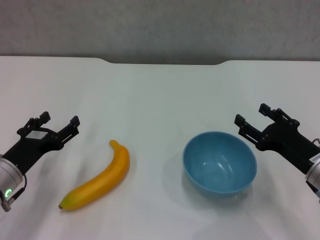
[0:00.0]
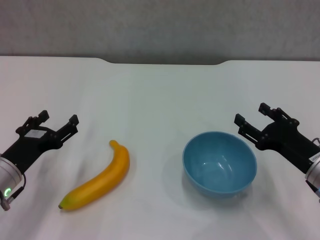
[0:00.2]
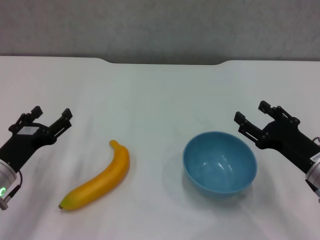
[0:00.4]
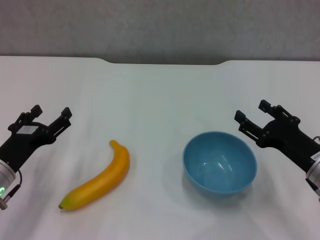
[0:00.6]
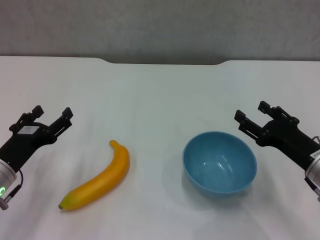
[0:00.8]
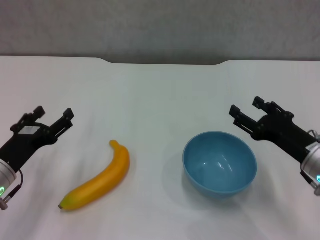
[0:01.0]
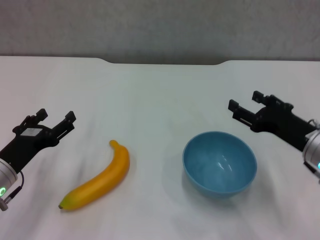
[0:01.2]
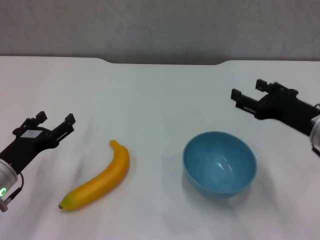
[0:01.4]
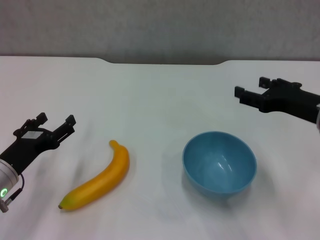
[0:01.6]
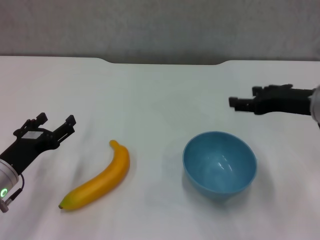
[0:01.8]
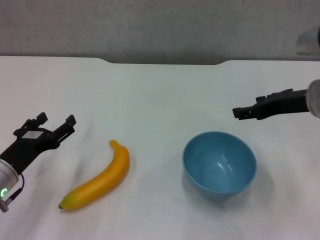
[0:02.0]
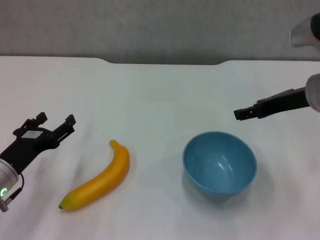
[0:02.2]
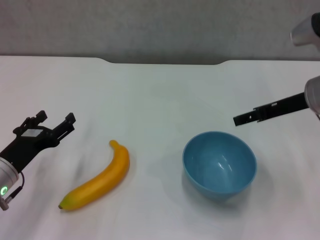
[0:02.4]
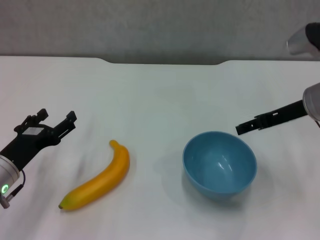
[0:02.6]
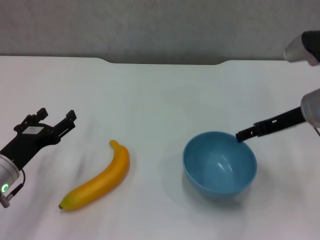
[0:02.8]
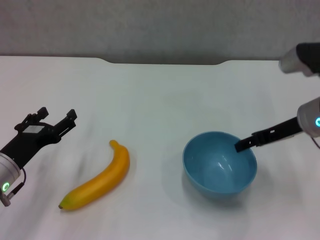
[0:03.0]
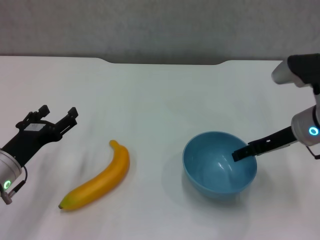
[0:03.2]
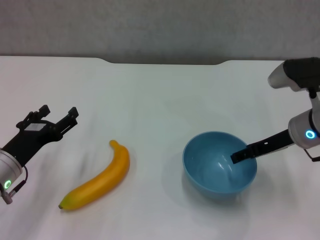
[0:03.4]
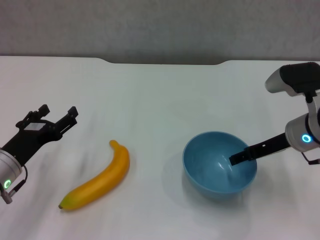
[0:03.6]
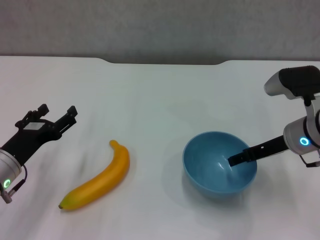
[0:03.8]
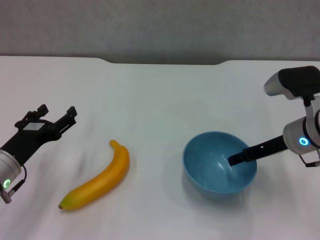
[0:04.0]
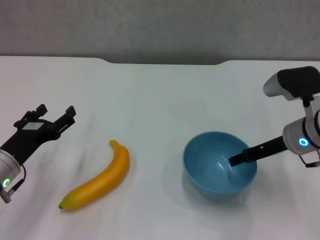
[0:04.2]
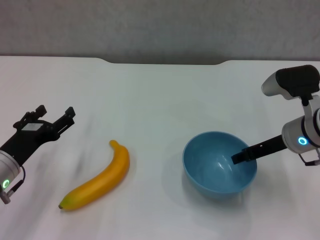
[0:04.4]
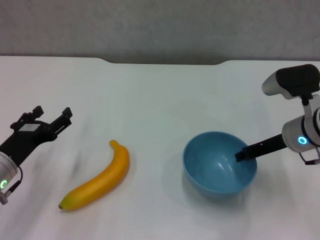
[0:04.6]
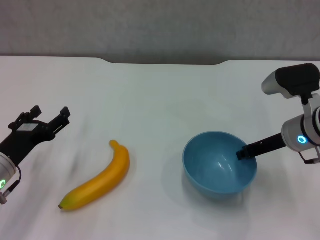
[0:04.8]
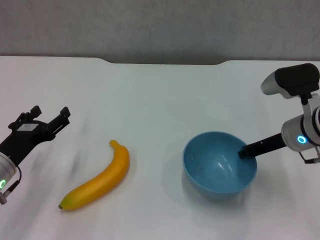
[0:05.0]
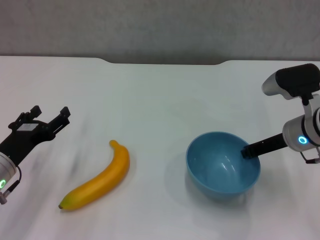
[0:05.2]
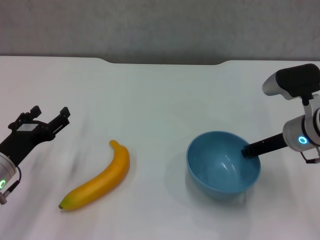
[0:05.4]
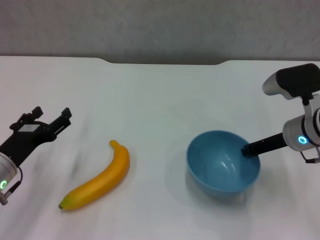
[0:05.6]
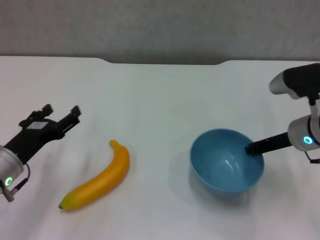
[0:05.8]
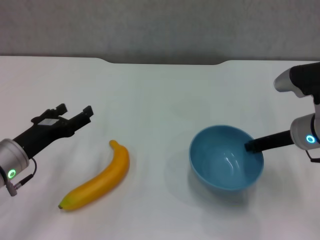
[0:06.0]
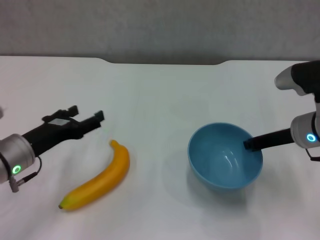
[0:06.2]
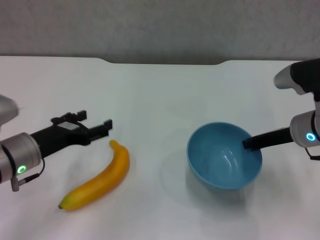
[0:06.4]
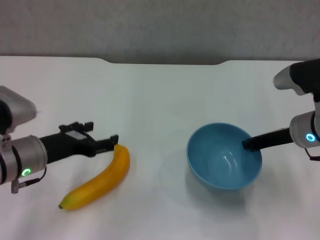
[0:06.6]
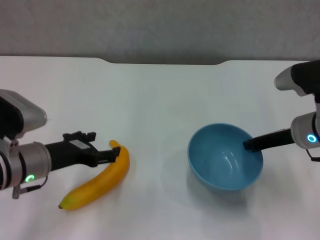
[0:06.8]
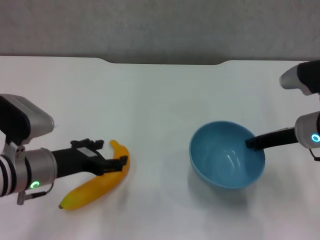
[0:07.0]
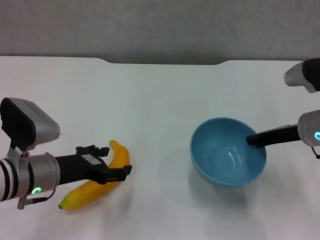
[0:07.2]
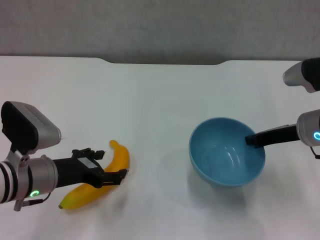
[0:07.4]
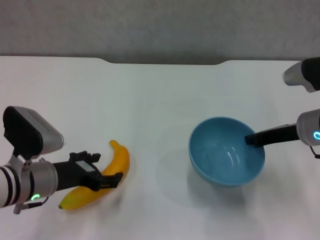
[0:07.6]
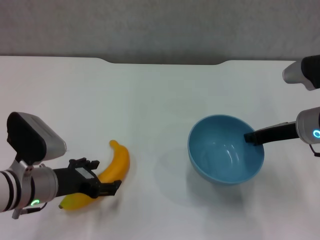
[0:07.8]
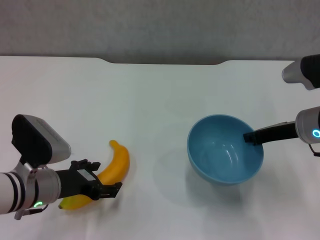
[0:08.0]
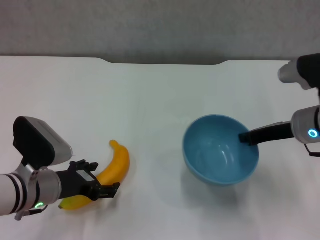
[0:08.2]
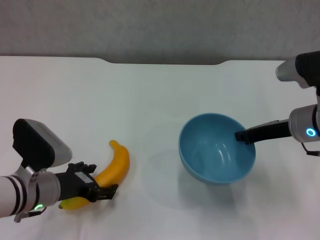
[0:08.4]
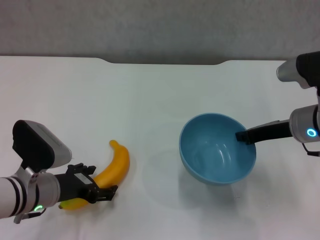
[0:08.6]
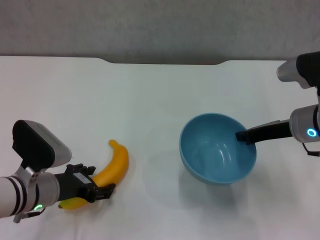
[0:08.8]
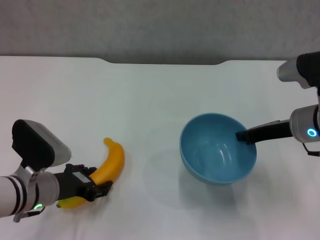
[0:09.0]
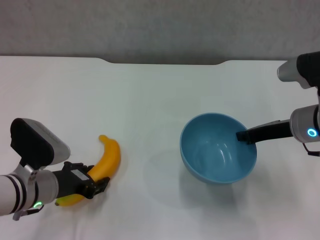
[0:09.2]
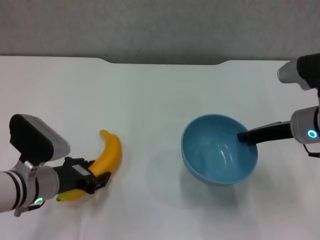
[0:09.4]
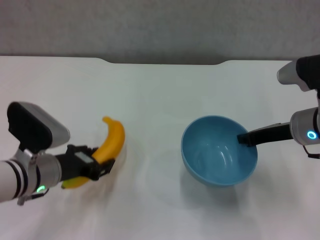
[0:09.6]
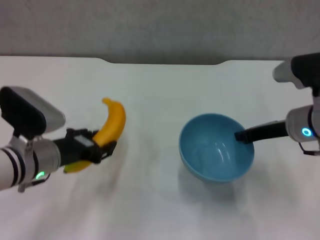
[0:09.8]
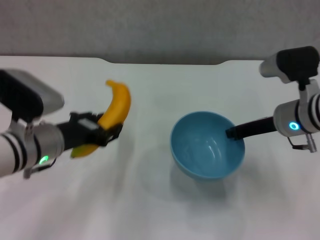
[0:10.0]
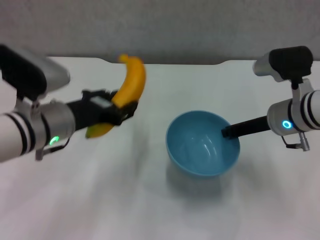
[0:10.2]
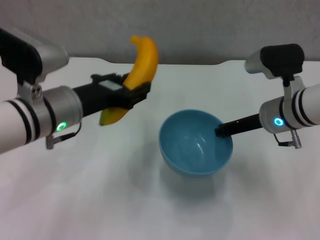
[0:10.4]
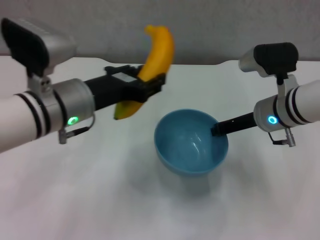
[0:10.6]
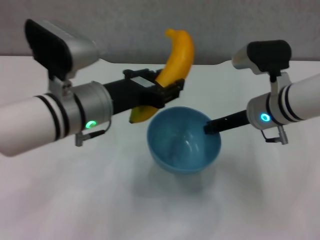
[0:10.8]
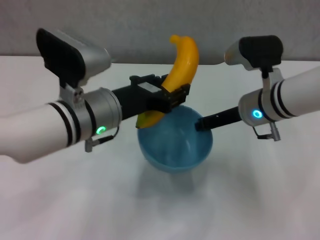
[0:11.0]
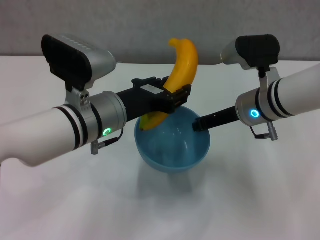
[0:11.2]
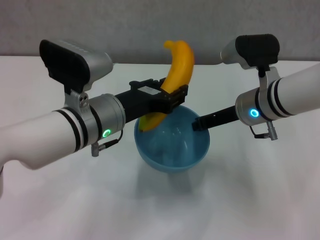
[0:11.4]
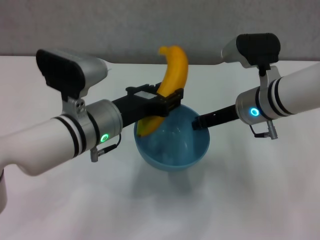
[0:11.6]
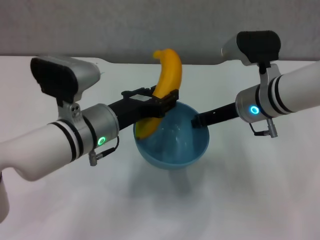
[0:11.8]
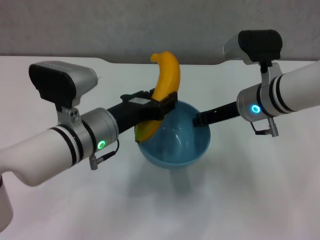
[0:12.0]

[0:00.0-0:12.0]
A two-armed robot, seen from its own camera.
Step, 0:00.0 to 0:05.2: Grasp the blue bowl with right gripper.
Step, 0:05.4 to 0:06.0: Lift the blue bowl with right gripper.
Step, 0:06.2 to 0:09.0: Grasp the banana with left gripper.
0:00.0 to 0:01.6: The right gripper heads upward, covering approximately 10 cm.
0:01.6 to 0:03.0: The right gripper goes roughly 5 cm forward.
0:03.0 to 0:04.4: The grippers move only a little.
0:04.4 to 0:06.0: The right gripper closes up.
0:07.6 to 0:09.0: The grippers move only a little.
0:09.0 to 0:10.4: The left gripper heads upward and to the right, covering about 15 cm, and closes its fingers.
0:10.4 to 0:12.0: The left gripper shifts by roughly 5 cm.

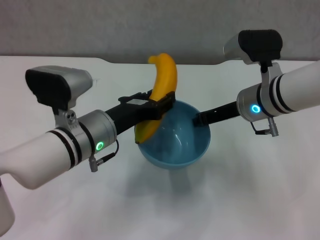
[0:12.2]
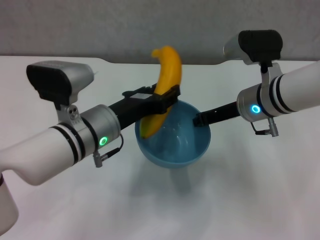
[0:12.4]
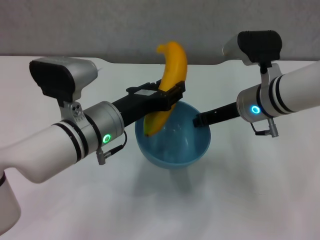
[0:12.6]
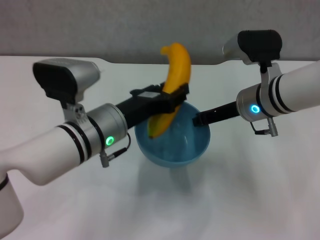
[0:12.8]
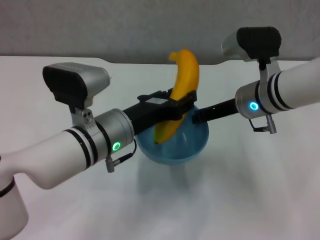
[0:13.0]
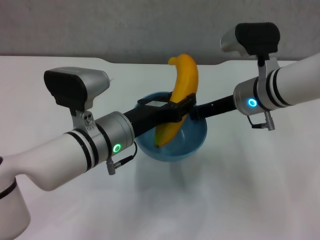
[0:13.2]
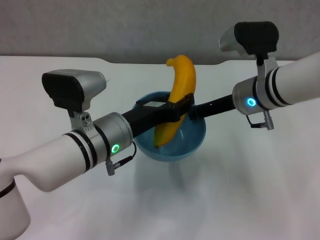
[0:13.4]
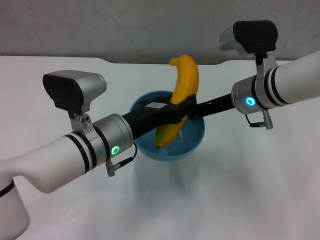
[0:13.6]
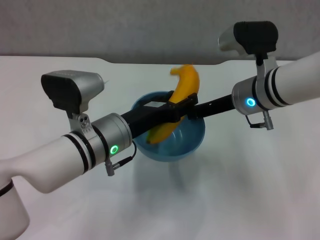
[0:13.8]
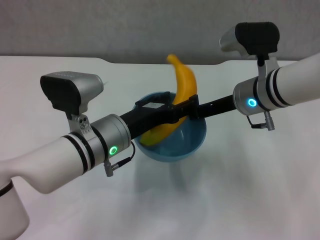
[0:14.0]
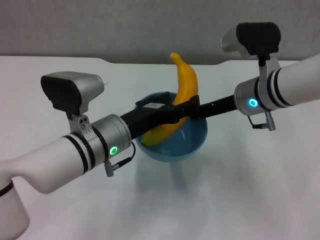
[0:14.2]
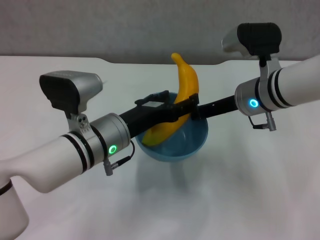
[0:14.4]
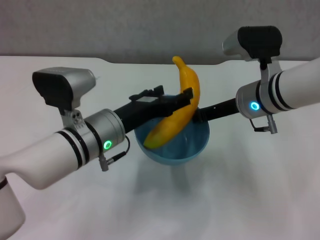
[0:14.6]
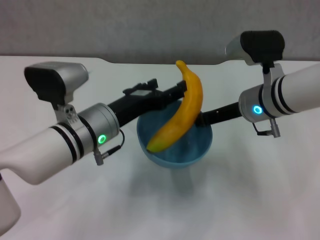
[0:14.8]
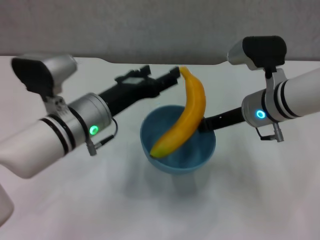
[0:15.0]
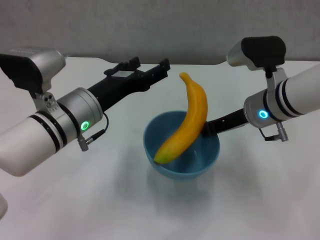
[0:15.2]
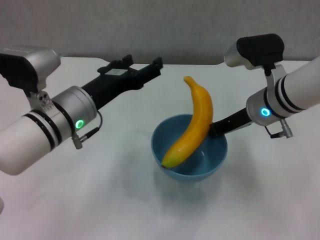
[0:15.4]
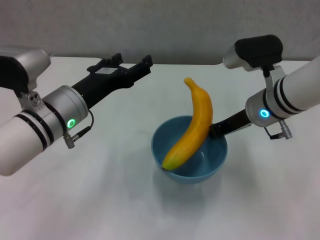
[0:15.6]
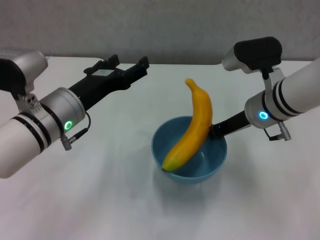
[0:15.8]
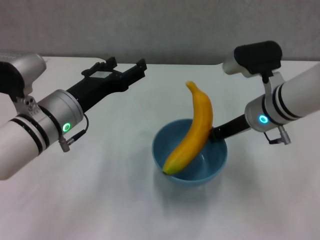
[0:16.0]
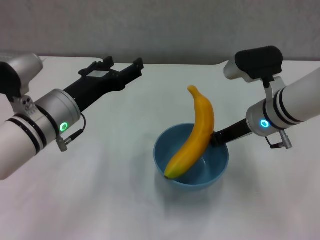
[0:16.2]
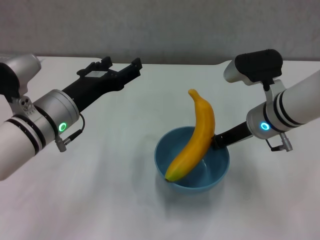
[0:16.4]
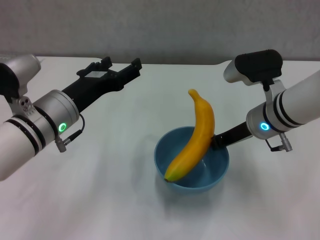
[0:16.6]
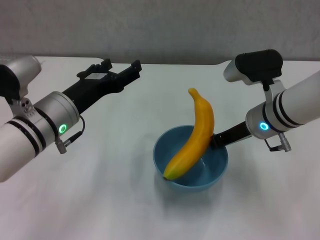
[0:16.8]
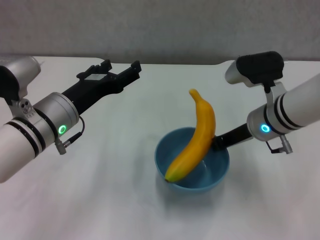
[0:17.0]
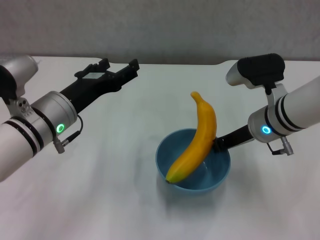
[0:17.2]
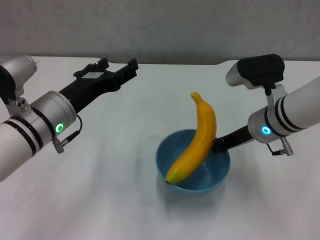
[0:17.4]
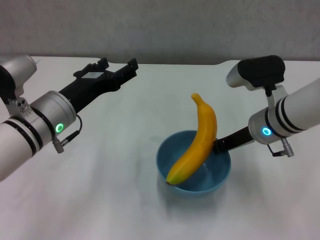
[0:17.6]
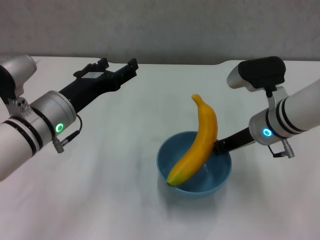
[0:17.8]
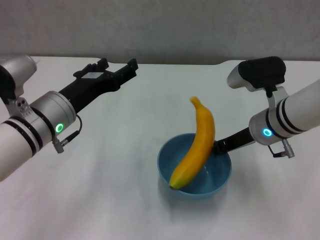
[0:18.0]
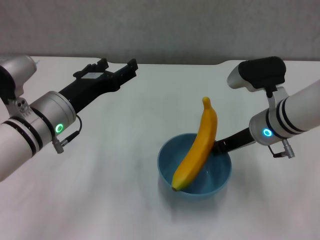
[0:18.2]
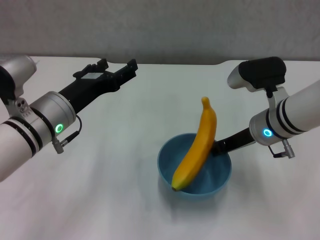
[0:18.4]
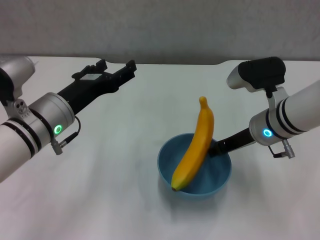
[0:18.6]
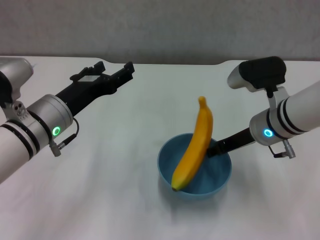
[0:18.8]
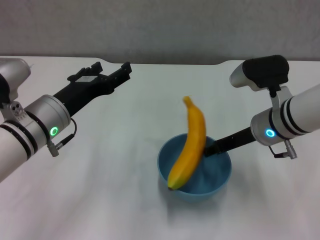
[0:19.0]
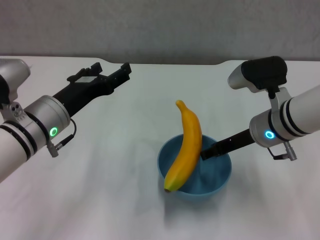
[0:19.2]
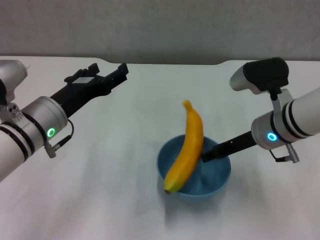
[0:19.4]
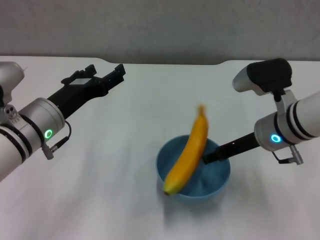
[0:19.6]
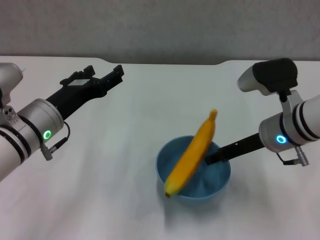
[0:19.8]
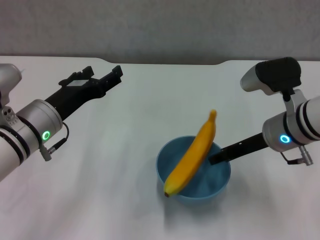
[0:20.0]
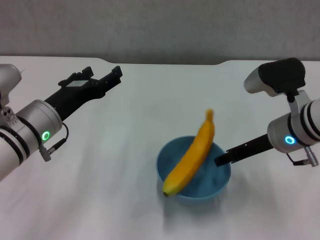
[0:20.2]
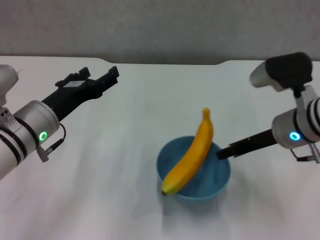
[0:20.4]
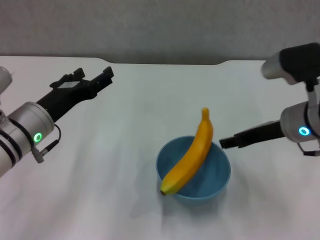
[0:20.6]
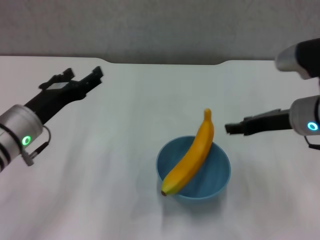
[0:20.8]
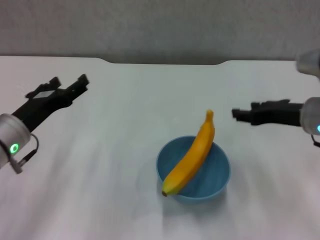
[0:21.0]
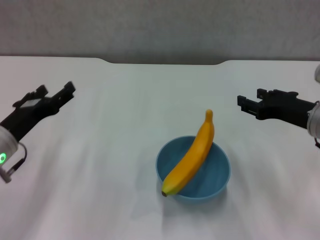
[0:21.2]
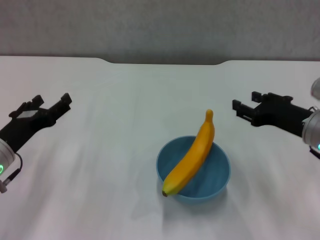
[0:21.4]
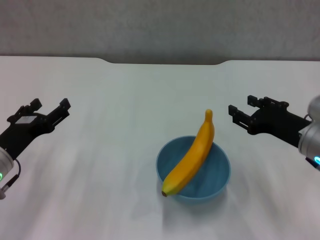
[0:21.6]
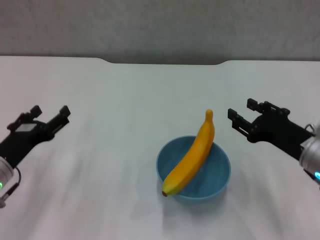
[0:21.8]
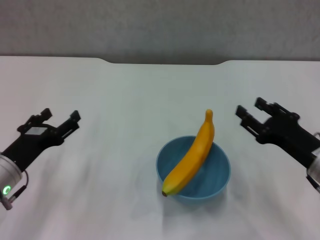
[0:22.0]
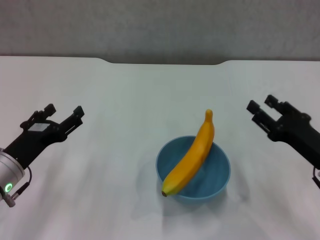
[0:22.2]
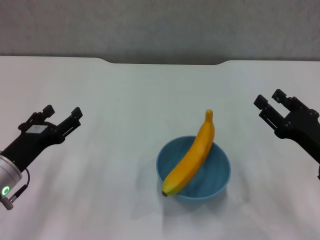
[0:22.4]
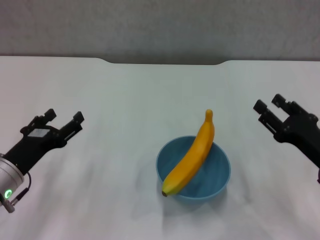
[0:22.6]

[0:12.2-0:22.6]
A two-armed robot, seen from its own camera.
Step, 0:12.2 to 0:14.6: Place the banana in the blue bowl with left gripper.
Step, 0:14.8 to 0:20.4: Place the bowl on the table with right gripper.
0:13.6 to 0:15.2: The left gripper opens its fingers.
0:16.6 to 0:18.2: Both grippers stay about where they are.
0:18.2 to 0:19.6: The right gripper opens its fingers.
0:19.6 to 0:21.2: The right gripper heads to the right, covering some 5 cm; the left gripper moves to the left, approximately 5 cm.
0:21.2 to 0:22.6: The right gripper travels downward and backward by some 10 cm, while the left gripper ends up some 5 cm from where it was.
